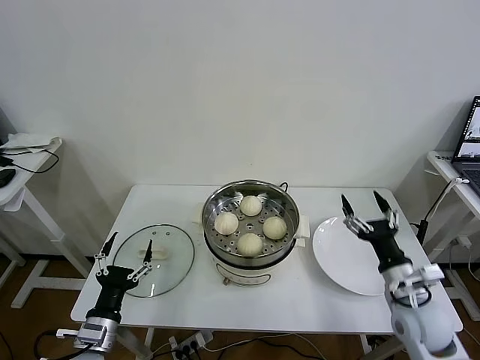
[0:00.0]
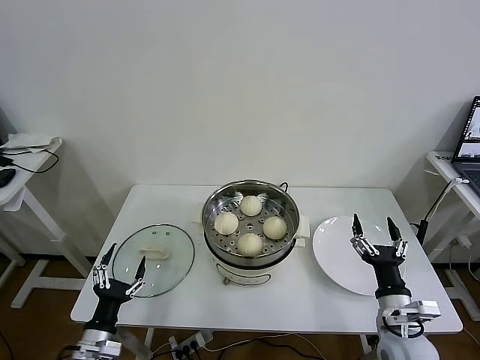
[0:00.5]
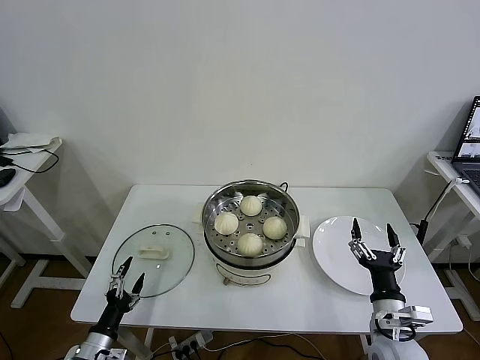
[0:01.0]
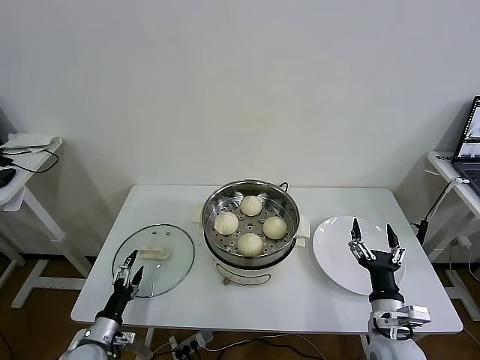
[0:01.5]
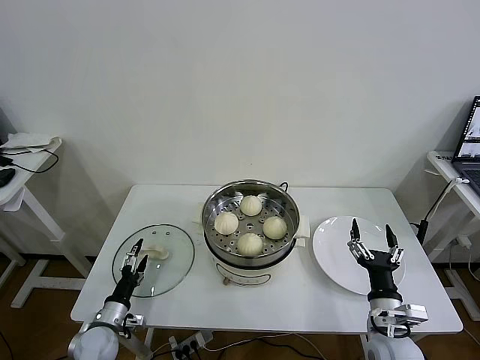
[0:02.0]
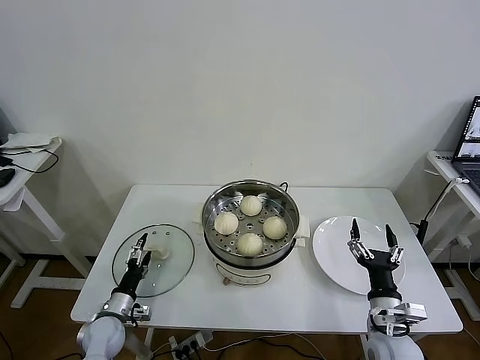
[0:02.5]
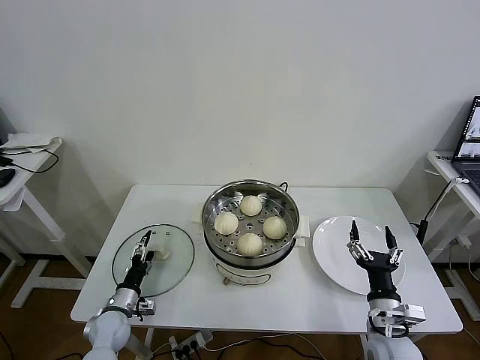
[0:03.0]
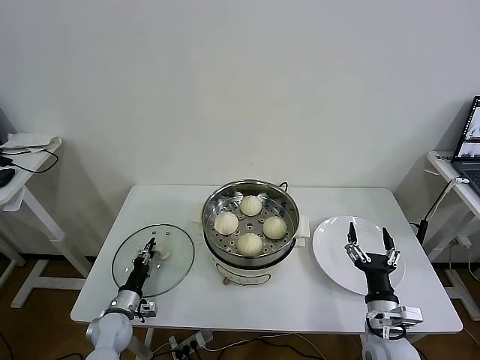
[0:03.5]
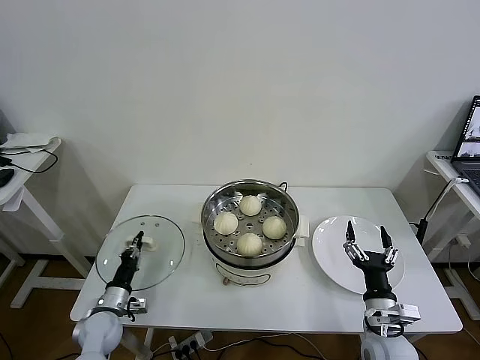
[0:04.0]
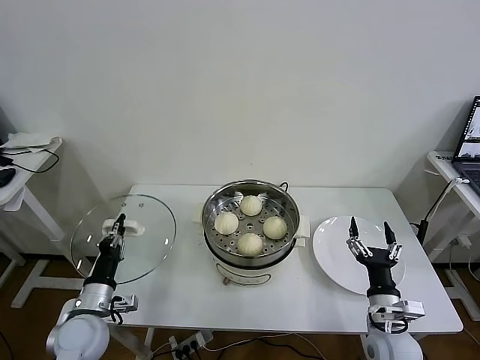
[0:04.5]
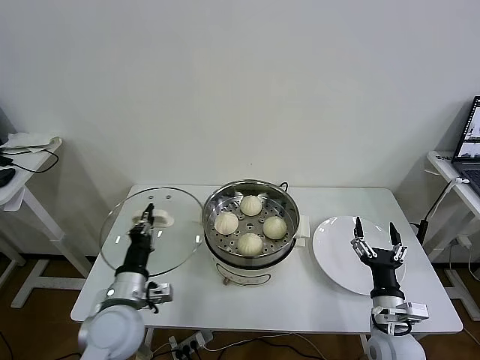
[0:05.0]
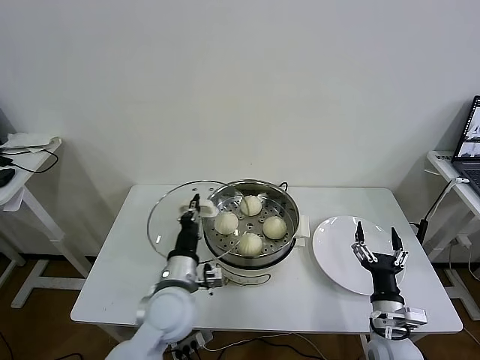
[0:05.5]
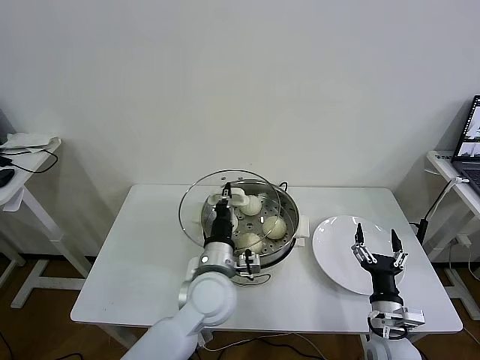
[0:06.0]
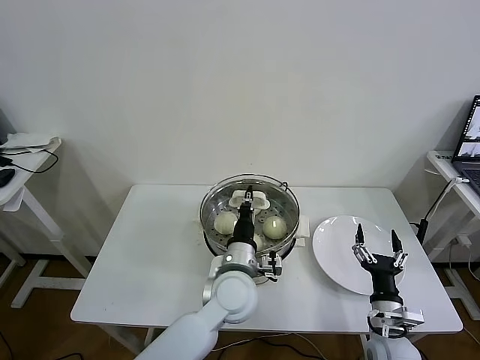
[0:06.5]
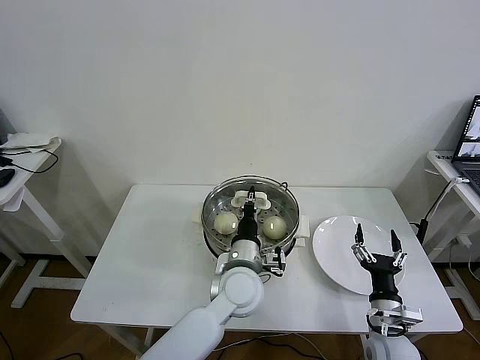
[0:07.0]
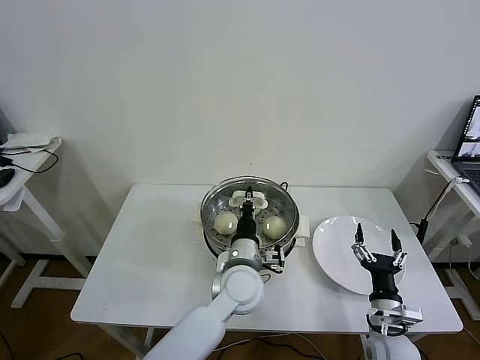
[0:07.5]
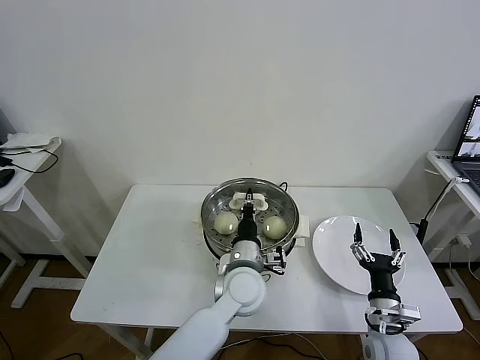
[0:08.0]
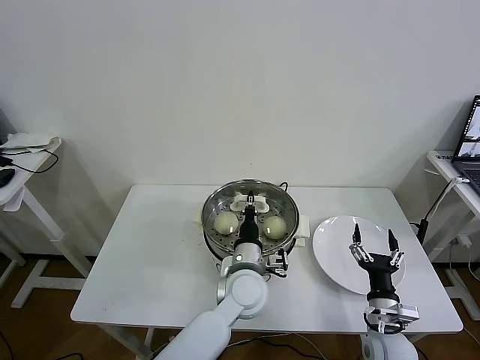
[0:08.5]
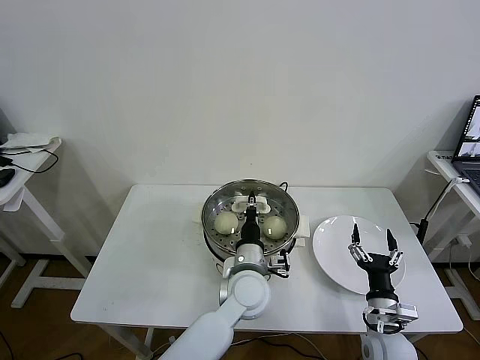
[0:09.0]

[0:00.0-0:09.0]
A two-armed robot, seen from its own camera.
Task of the whole recording: take steamed baozi put them in steamer then cover it.
Step, 0:00.0 to 0:03.5: Grasp the pot lid with left gripper.
0:00.0 to 0:02.0: The left gripper goes some 15 cm downward, forward and to the left; the right gripper shifts about 5 cm downward.
0:02.0 to 0:04.5: The left gripper shifts approximately 10 cm upward, and closes.
0:04.5 to 0:07.0: The left gripper goes some 30 cm to the right.
0:07.0 to 0:09.0: The grippers stay close to where they were, moving slightly.

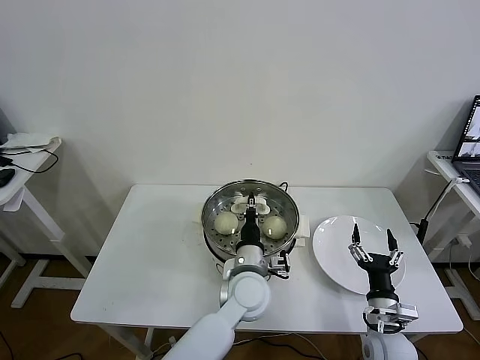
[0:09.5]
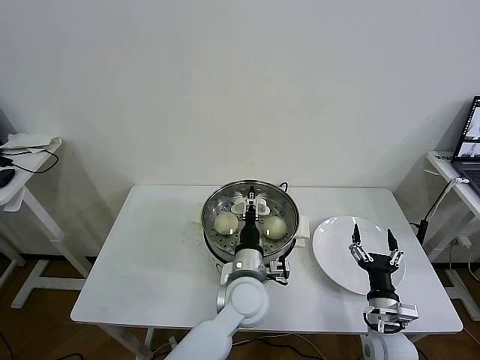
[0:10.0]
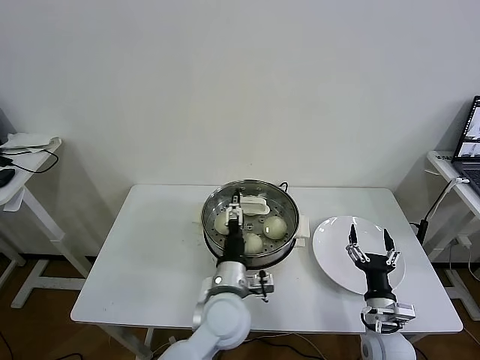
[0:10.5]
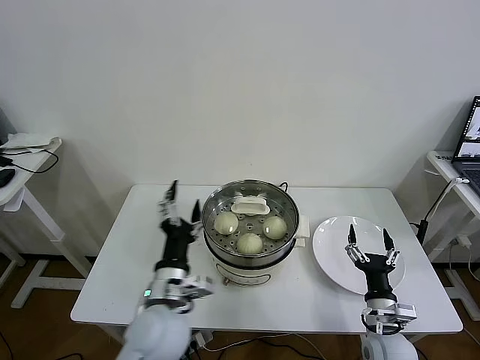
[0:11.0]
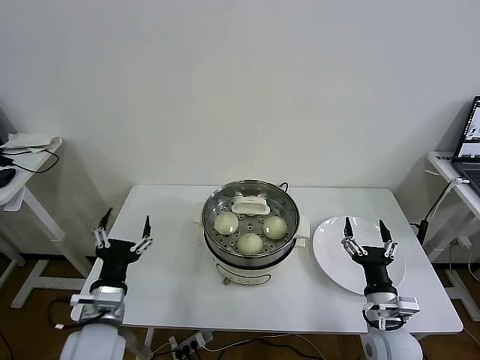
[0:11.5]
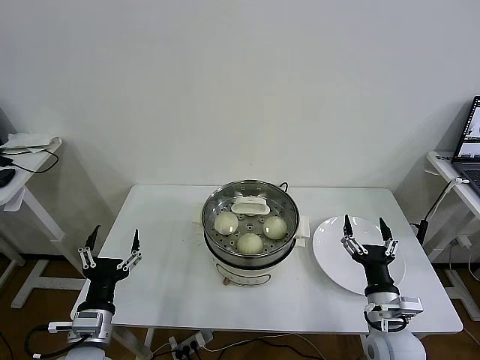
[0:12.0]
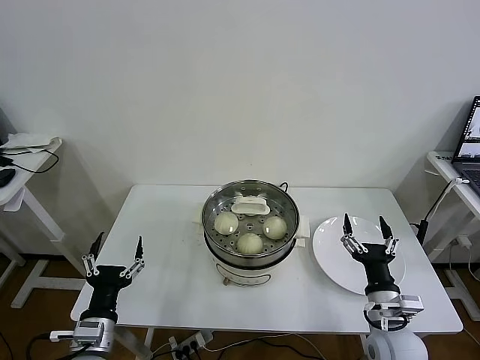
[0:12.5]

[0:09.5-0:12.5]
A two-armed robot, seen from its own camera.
Task of the whole recording: take steamed baozi put them in steamer then cover it.
0:09.5 to 0:11.0: The left gripper shifts some 15 cm to the left and backward, and opens its fingers.
0:11.0 to 0:12.5: The left gripper moves to the left and backward, about 15 cm. The right gripper travels upward by roughly 5 cm.
